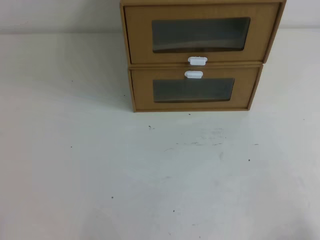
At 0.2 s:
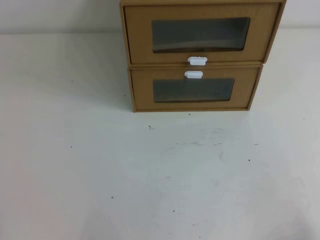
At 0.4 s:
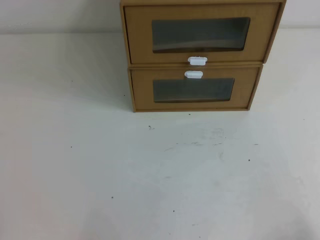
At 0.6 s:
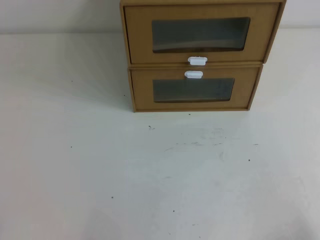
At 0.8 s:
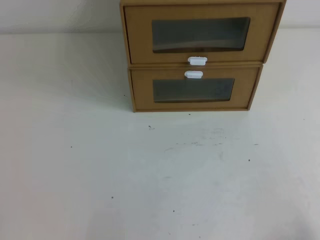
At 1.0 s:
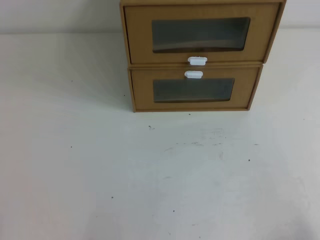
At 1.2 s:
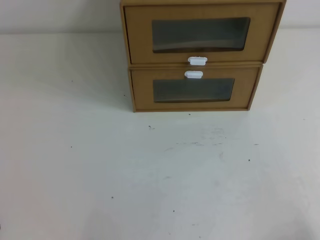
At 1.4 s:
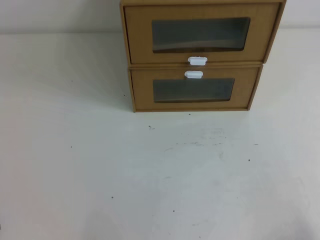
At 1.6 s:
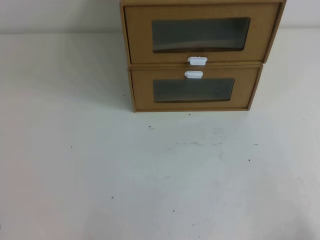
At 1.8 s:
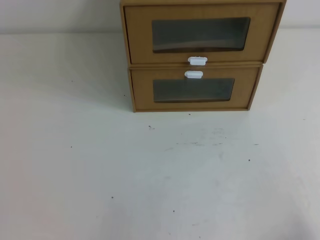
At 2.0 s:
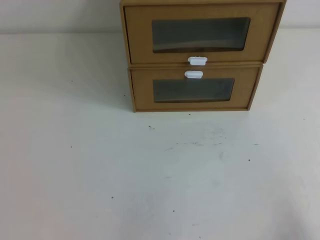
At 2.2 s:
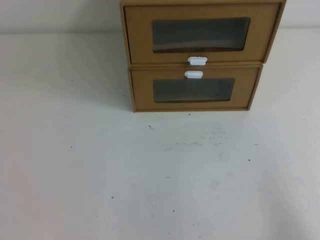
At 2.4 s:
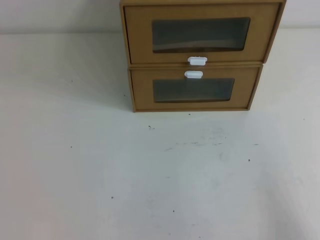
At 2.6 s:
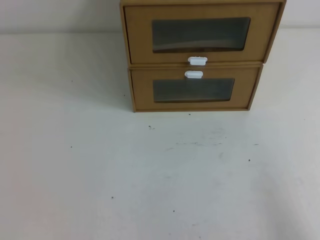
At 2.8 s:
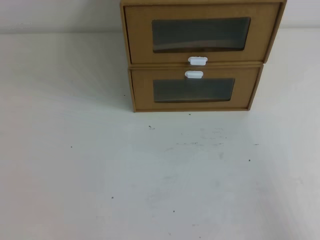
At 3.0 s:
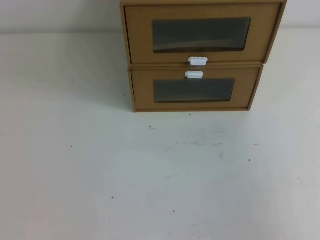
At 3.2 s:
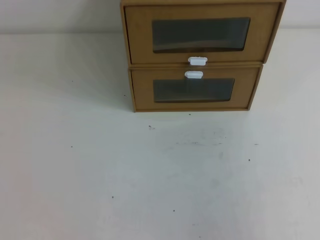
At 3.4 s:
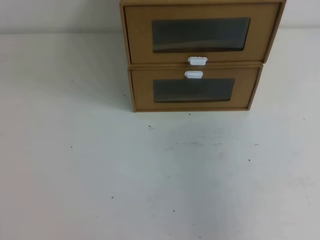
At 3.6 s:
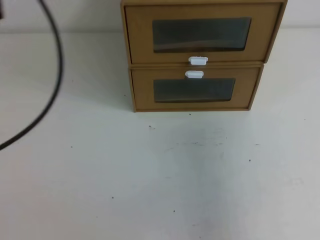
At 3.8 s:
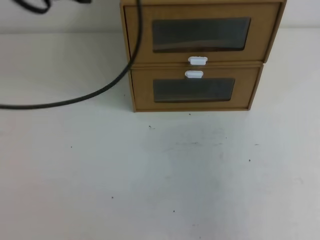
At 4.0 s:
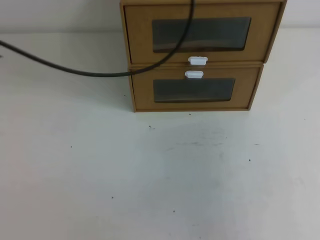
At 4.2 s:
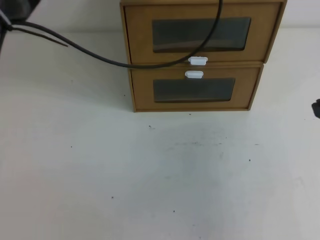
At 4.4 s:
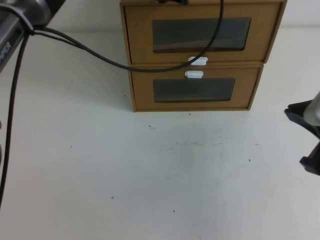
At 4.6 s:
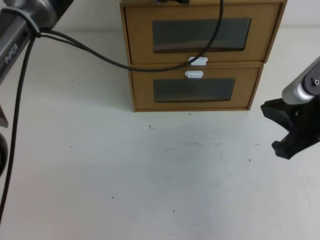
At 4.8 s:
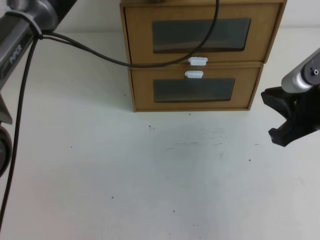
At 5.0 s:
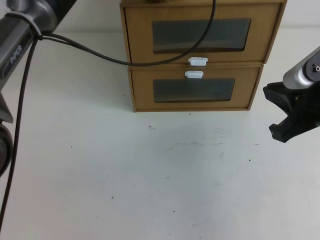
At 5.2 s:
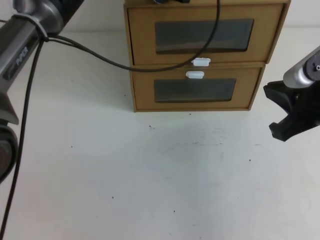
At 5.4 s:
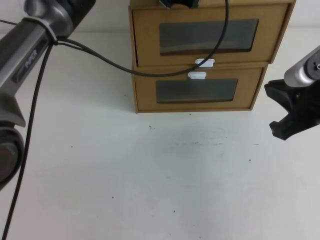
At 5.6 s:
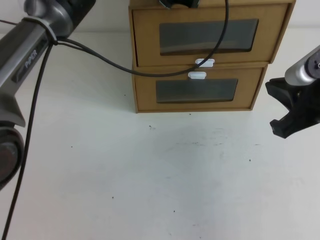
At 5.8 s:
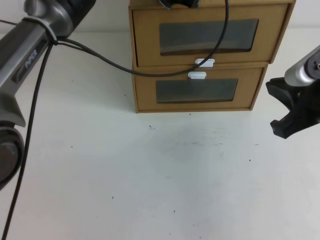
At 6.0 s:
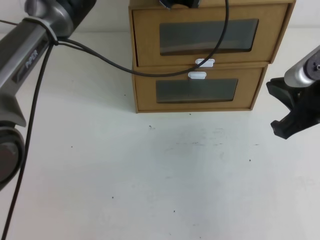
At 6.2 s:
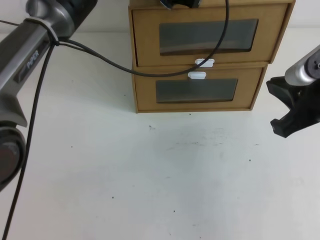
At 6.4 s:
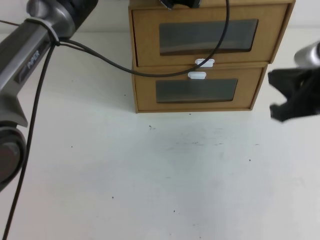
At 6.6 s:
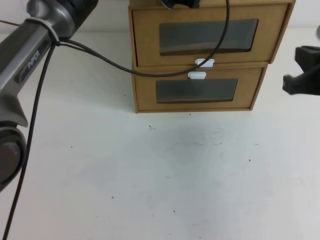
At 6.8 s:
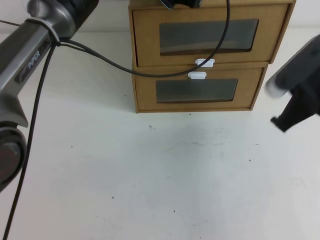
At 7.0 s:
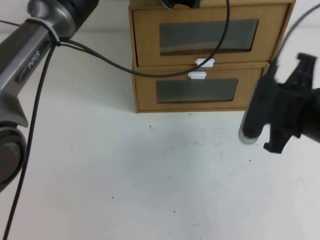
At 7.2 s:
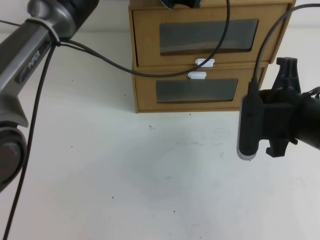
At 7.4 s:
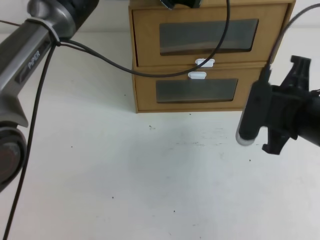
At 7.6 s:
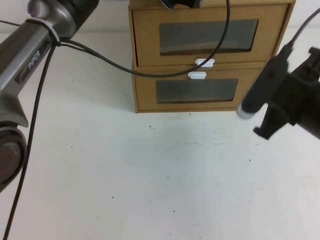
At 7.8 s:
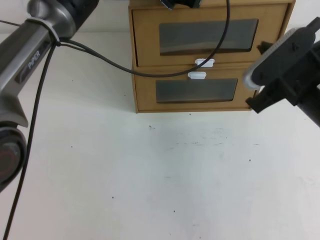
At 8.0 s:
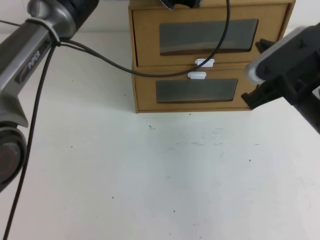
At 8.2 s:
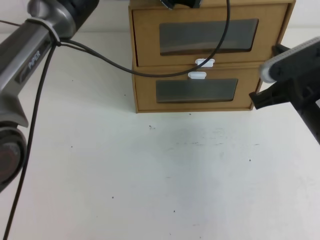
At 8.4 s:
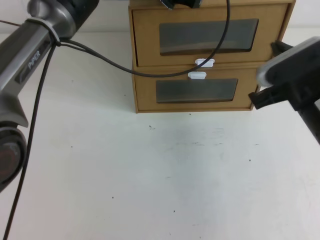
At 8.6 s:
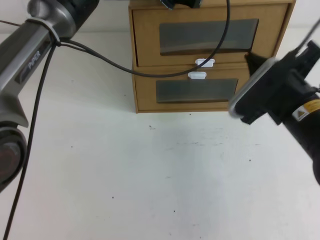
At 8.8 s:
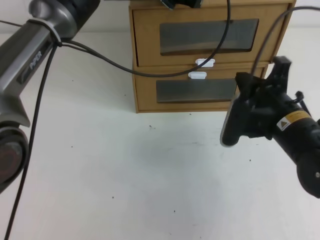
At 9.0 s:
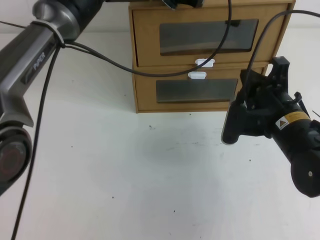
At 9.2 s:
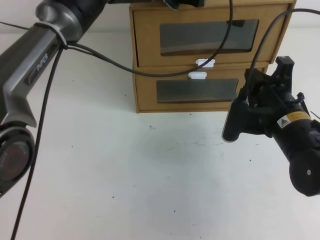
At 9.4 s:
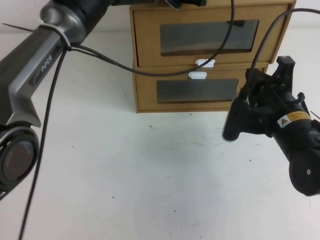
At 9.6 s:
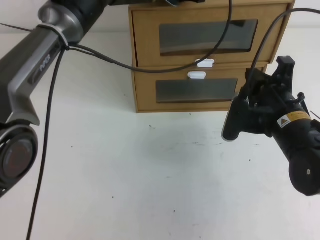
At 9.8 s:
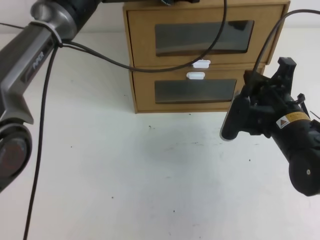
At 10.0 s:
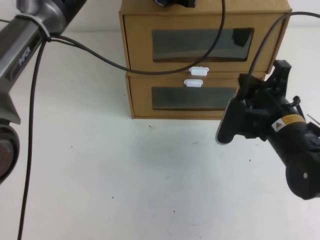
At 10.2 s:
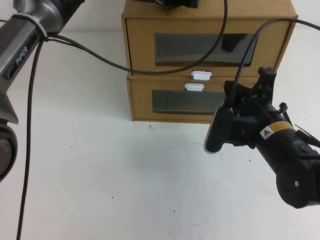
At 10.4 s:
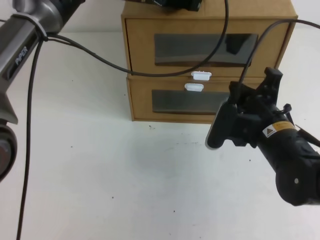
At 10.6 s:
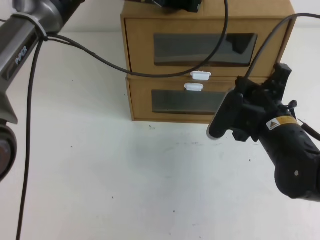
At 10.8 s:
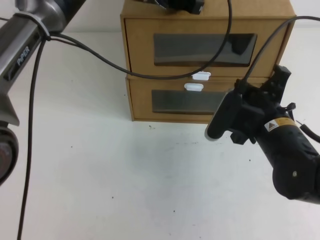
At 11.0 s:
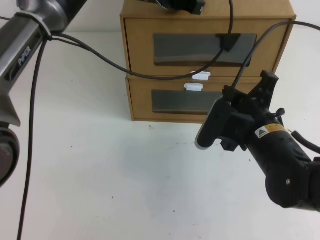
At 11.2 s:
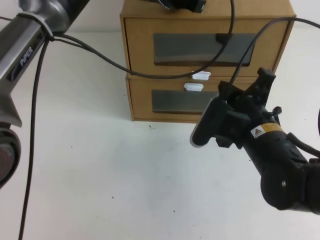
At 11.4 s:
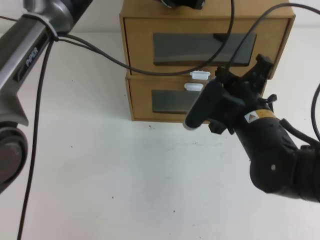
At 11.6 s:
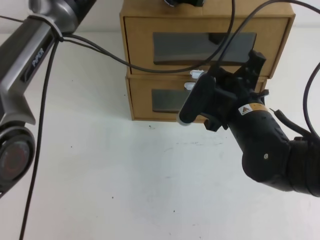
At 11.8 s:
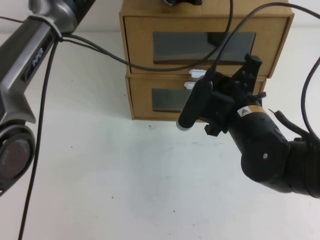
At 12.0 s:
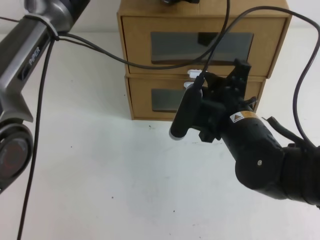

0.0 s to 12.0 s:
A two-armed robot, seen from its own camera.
Task of the whole recording: open the shoebox on the table.
0.0 to 1.6 s: Both grippers stay about where they are.
1.6 to 3.0 s: The right gripper heads upward, covering about 15 cm.
3.0 to 4.4 s: The right gripper moves forward and to the left, approximately 20 cm, while the left gripper goes approximately 50 cm forward and to the right.
4.4 to 6.0 s: The left gripper ends up approximately 5 cm from where it was.
6.0 to 7.6 s: The right gripper moves approximately 5 cm.
7.6 to 9.0 s: The right gripper moves downward, about 5 cm.
10.4 to 12.0 s: The right gripper ends up about 5 cm from where it was.

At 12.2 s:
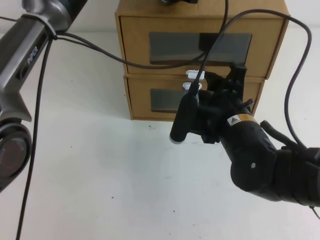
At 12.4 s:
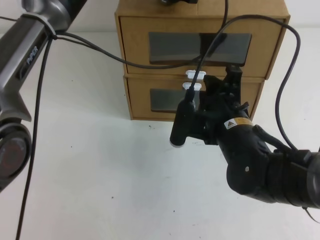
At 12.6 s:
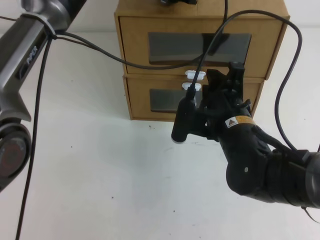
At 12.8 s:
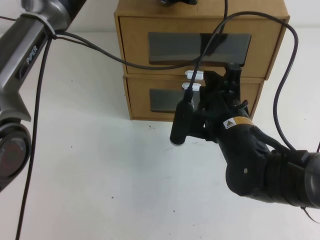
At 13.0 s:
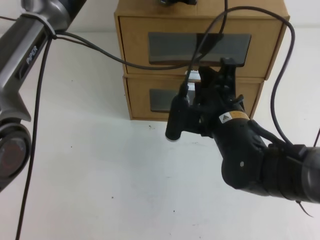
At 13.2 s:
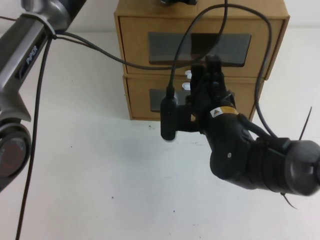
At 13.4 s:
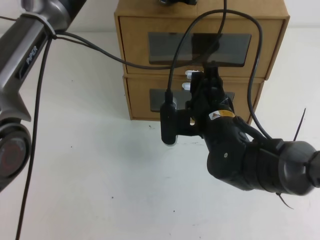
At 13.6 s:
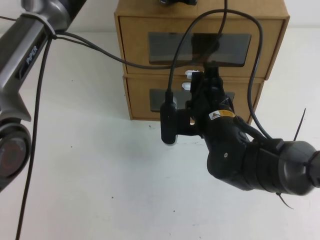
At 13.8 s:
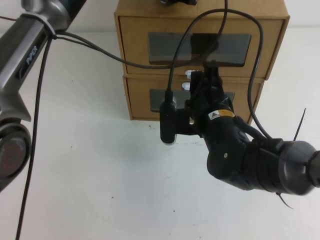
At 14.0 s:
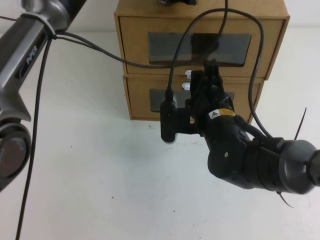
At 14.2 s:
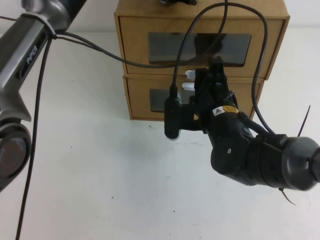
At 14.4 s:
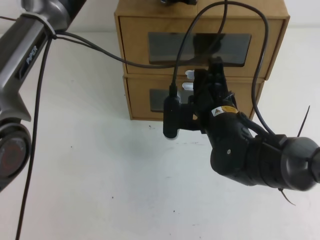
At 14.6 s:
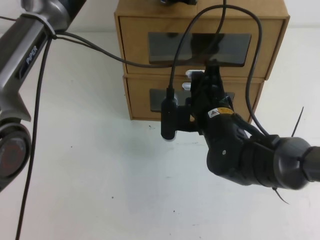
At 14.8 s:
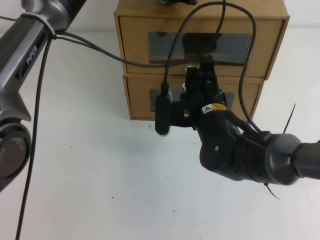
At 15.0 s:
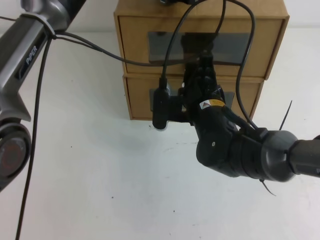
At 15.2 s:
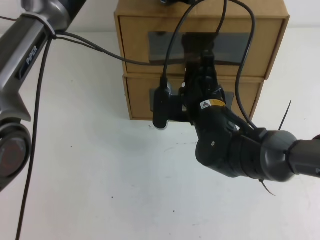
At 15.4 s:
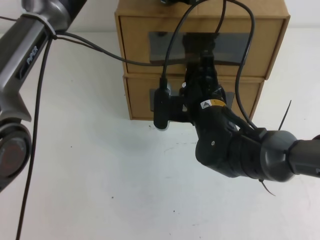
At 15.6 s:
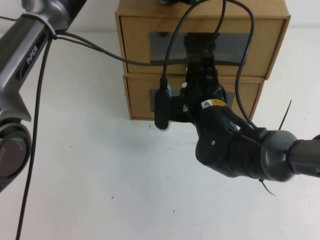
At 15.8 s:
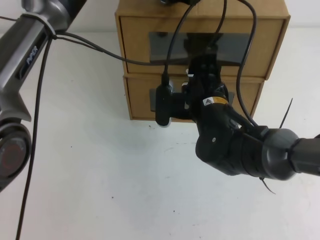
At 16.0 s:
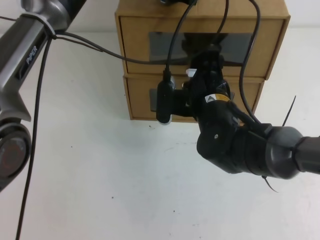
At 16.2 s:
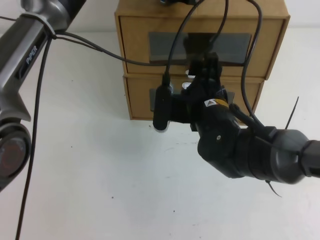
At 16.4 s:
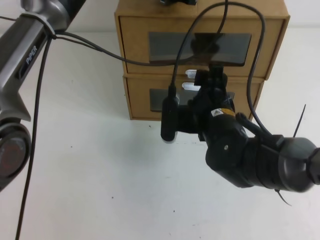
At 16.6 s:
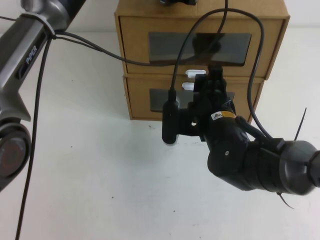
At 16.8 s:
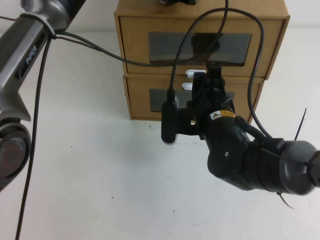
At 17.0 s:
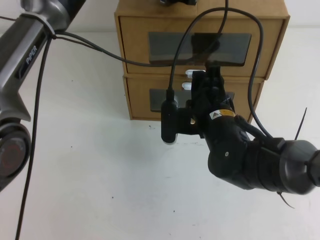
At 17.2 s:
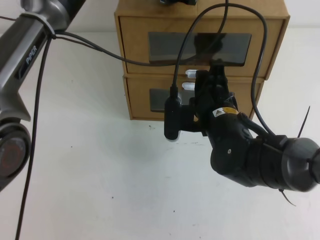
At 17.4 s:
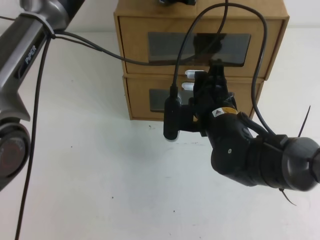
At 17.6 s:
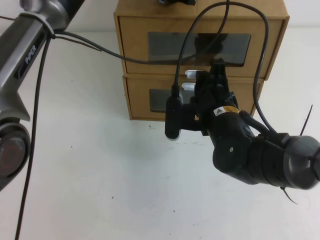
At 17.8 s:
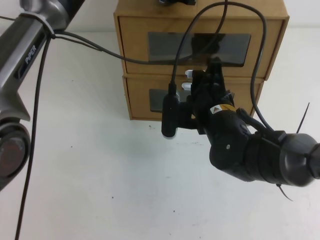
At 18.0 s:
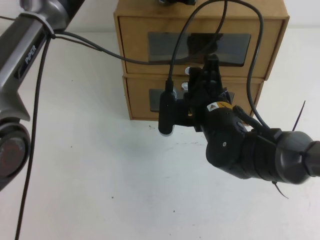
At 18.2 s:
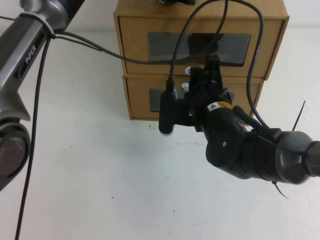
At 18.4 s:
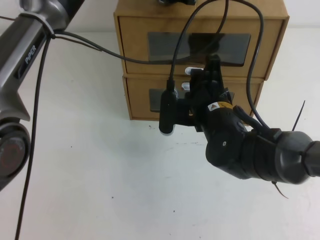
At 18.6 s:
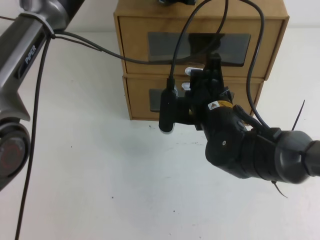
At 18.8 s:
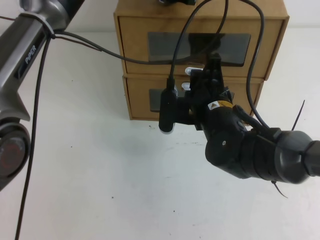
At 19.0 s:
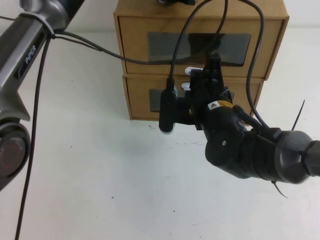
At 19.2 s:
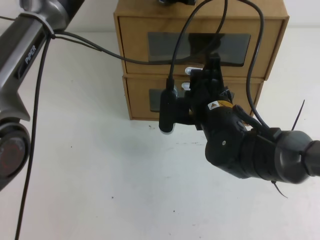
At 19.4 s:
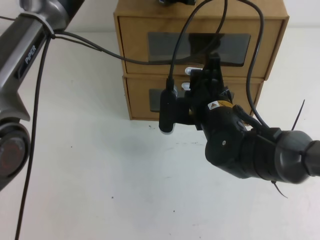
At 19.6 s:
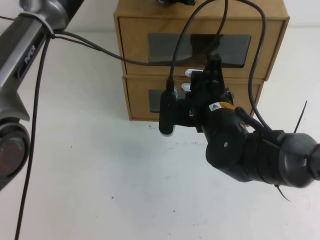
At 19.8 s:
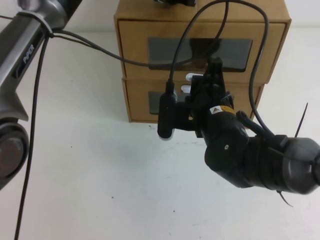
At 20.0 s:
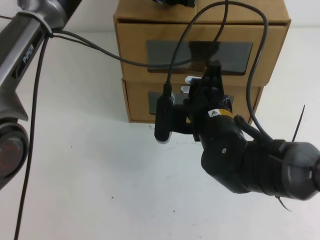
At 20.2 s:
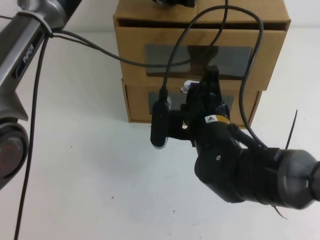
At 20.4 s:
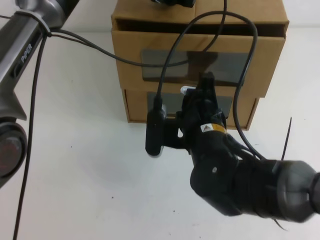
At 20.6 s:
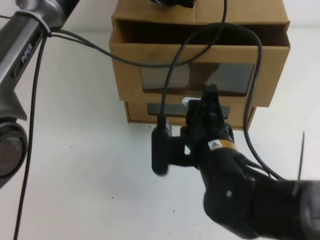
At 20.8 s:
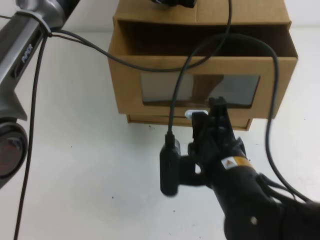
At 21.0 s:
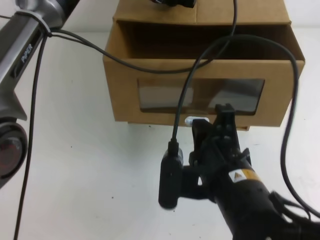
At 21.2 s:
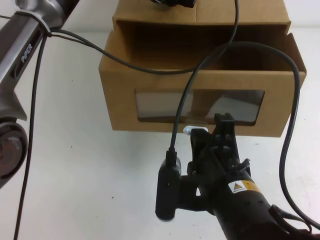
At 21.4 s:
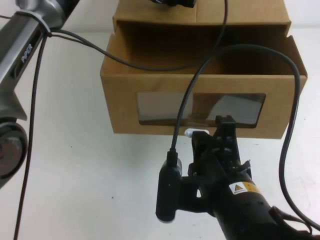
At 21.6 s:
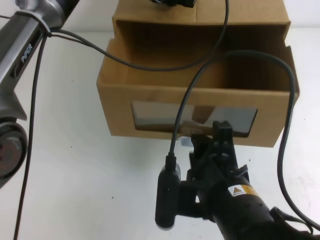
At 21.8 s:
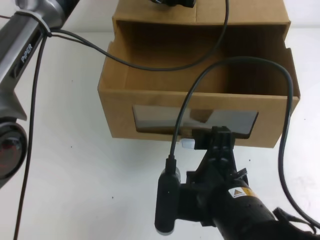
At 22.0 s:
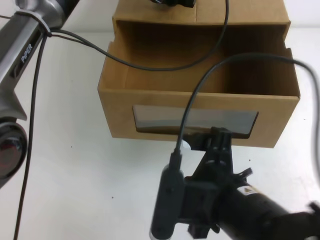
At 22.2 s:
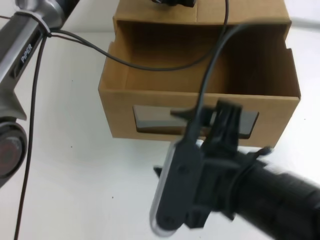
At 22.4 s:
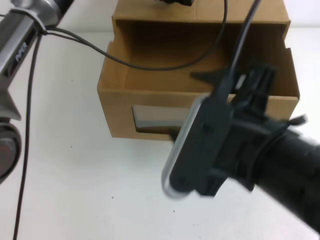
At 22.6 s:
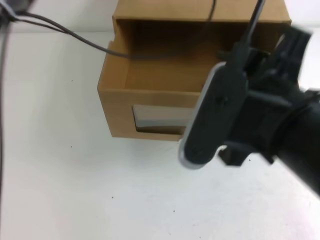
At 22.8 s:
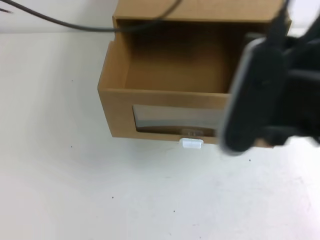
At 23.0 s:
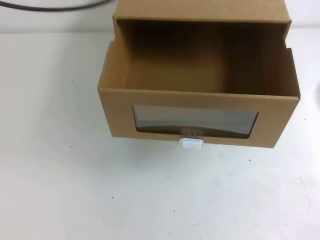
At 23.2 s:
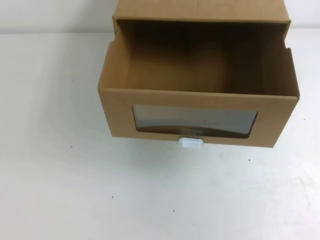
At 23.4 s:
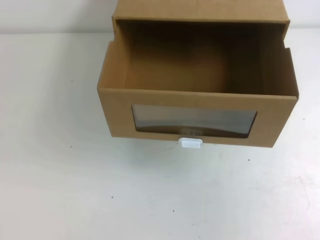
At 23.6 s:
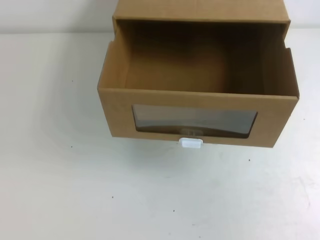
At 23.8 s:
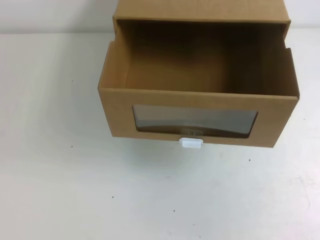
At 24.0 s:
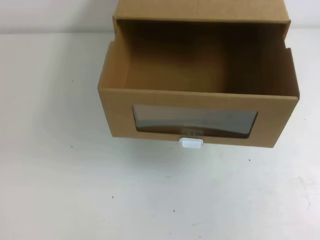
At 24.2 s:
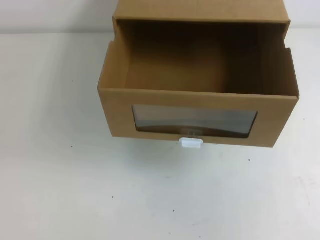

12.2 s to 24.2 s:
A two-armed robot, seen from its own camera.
Task of the whole recording: open the shoebox on the table.
12.2 to 15.2 s: The grippers stay close to where they were, moving slightly.
15.2 to 16.6 s: The right gripper opens.
16.6 to 18.2 s: Neither gripper changes place.
18.2 to 19.8 s: The right gripper closes up.
19.8 to 21.2 s: The right gripper goes about 15 cm backward.
21.2 to 22.6 s: The left gripper is displaced upward by roughly 5 cm. Meanwhile the right gripper goes roughly 15 cm upward, and opens its fingers.
22.6 to 24.2 s: The right gripper moves to the right, approximately 20 cm, and closes its fingers; the left gripper goes approximately 50 cm backward and to the left.
